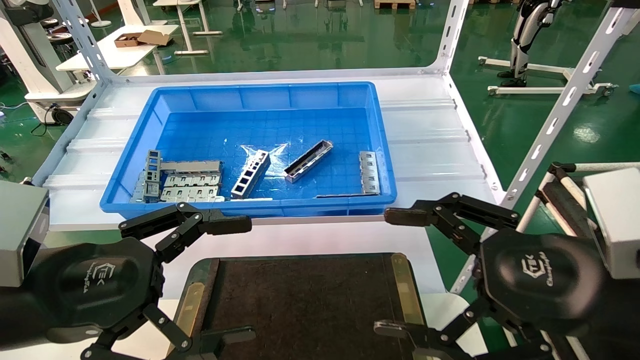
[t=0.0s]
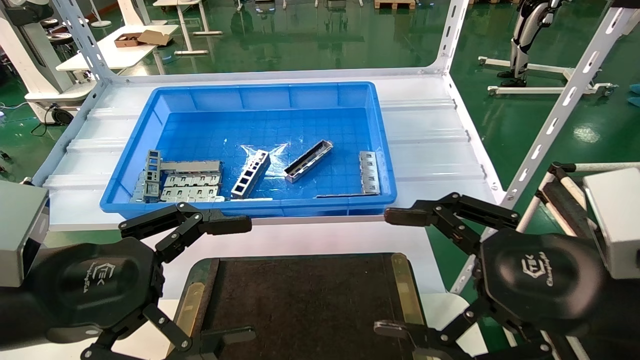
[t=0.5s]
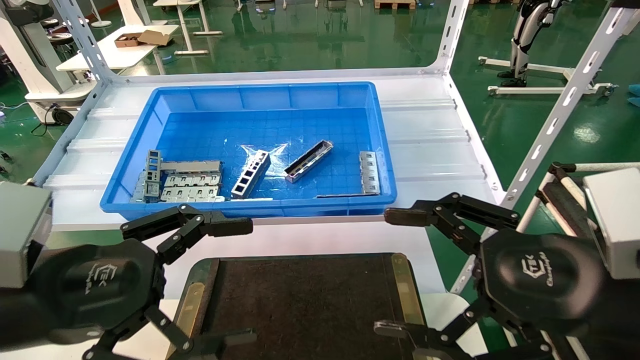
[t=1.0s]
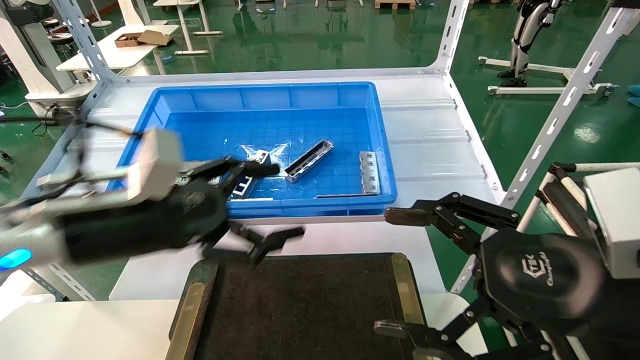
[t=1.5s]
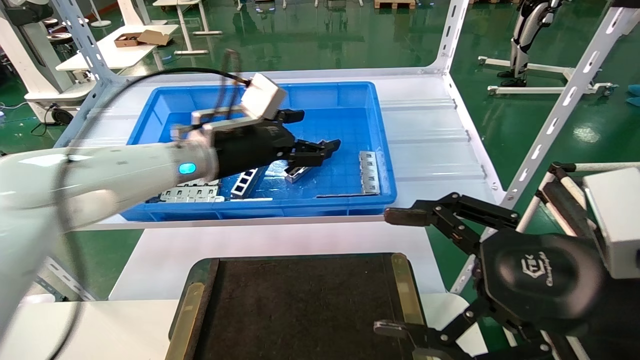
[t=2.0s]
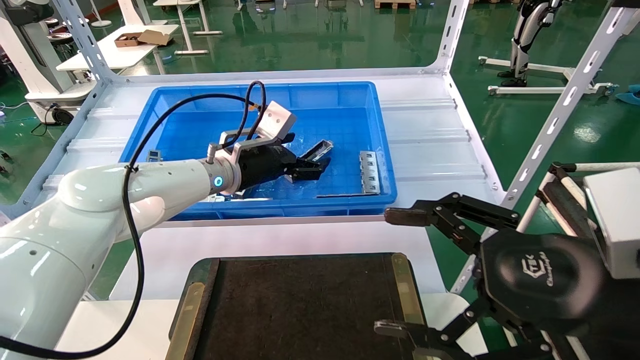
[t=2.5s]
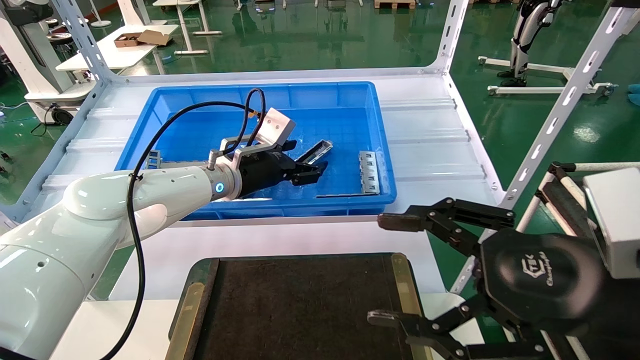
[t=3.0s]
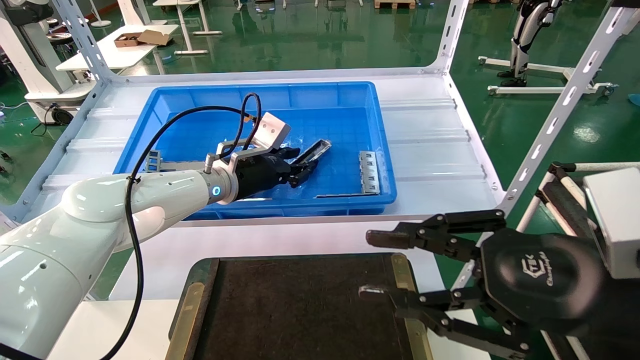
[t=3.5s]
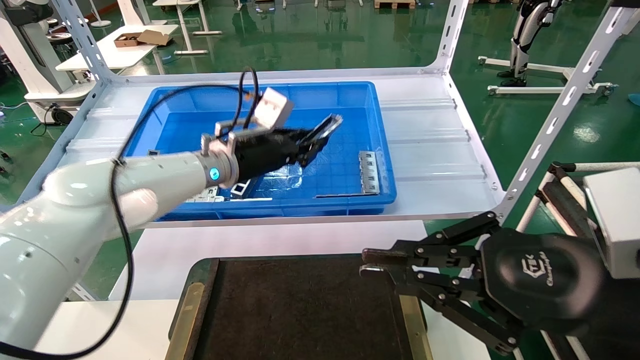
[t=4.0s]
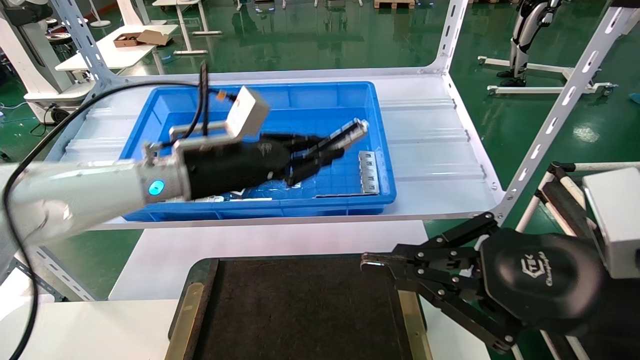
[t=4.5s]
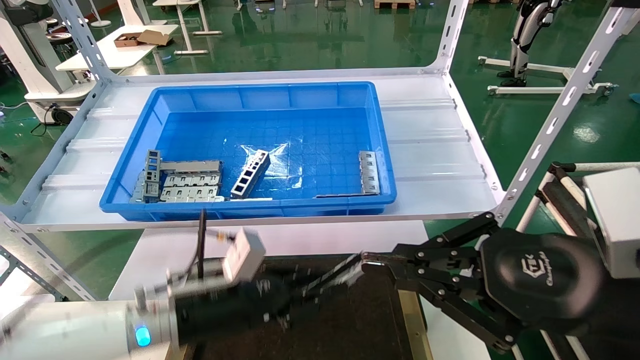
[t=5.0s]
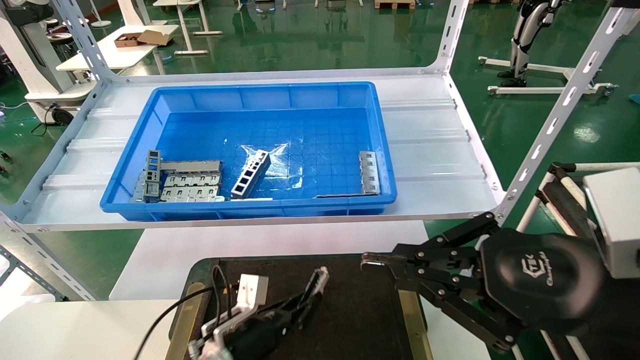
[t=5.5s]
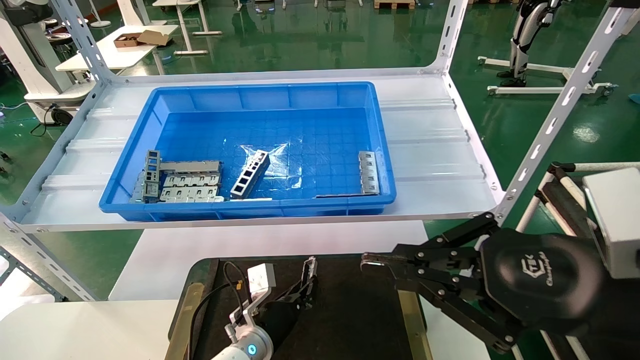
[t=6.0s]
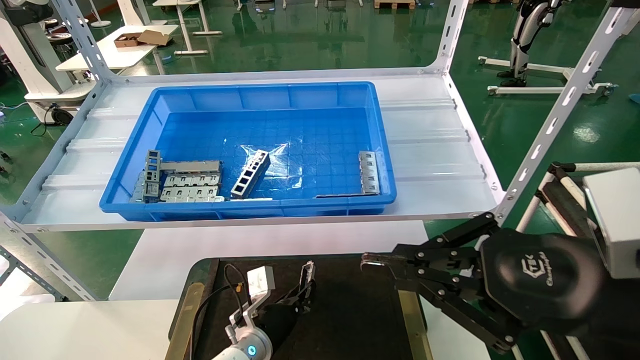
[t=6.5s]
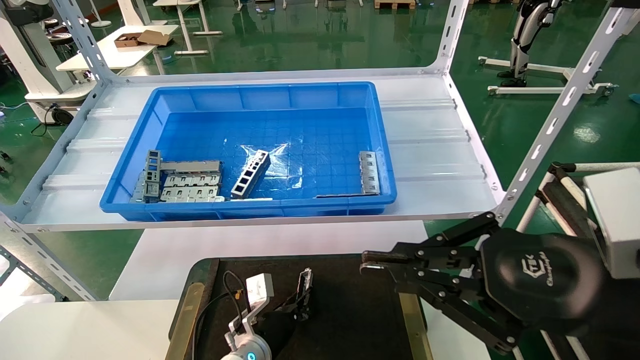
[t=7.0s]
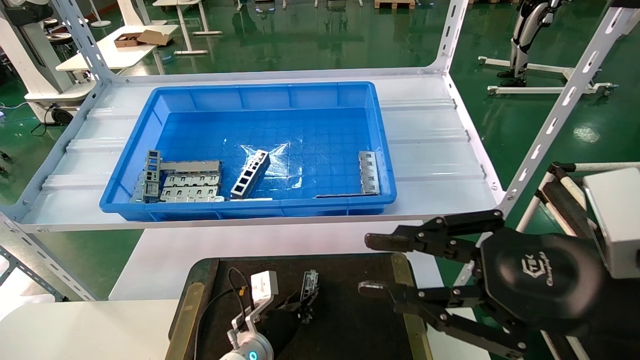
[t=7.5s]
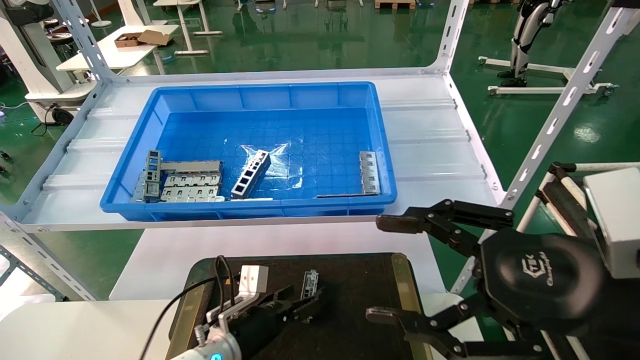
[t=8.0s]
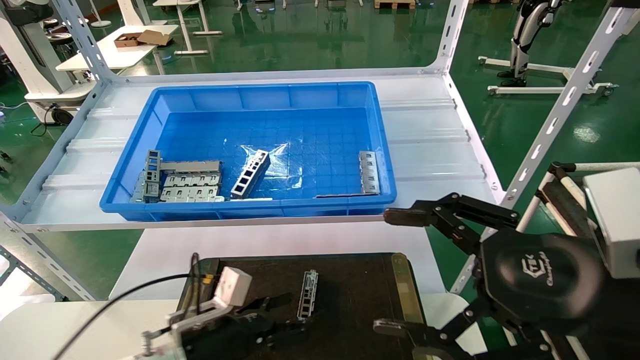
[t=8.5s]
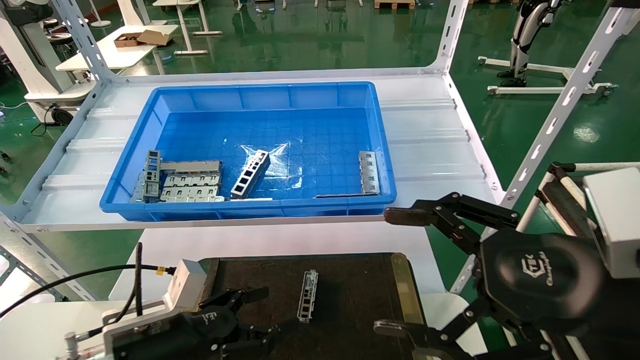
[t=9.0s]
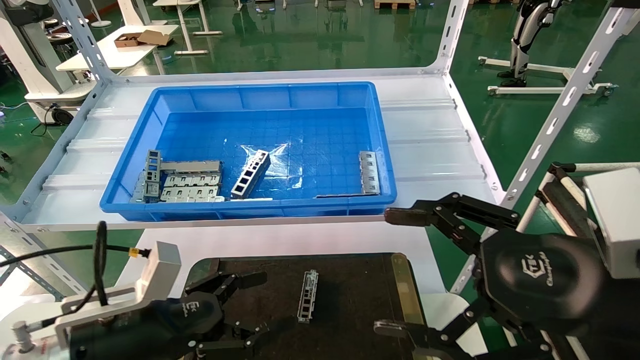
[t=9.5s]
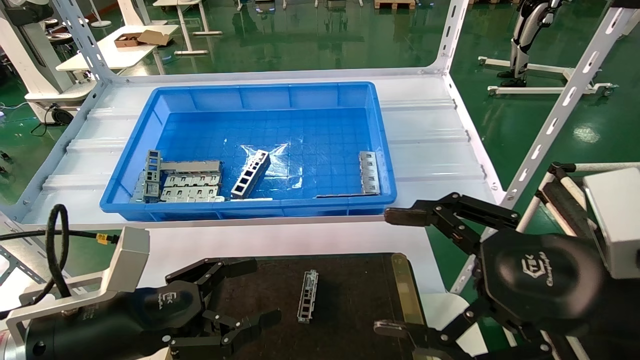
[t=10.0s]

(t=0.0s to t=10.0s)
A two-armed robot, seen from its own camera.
Task of the whole recording: Grasp the part with one hand and place it on the black container.
Step, t=1.5s - t=4.0s: Pick up the front USB bracket from the feeding area.
Step, t=4.5s - t=7.5s: Place the front USB bracket into the box.
t=0.0s - t=2.0s: The left gripper is displaced forward and to the right by approximately 25 cm.
t=2.0s - t=4.0s: The right gripper closes its fingers; the left gripper closes.
t=4.0s - t=6.0s: The left gripper moves downward, some 30 cm.
t=6.0s - t=8.0s: The right gripper opens its fingers. The left gripper shifts by approximately 5 cm, and opens up.
t=8.0s - t=10.0s: The left gripper heads upward, backward and to the left, covering about 25 cm; the right gripper opens up.
